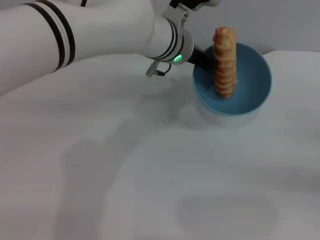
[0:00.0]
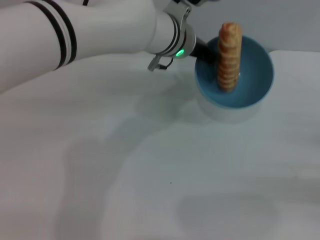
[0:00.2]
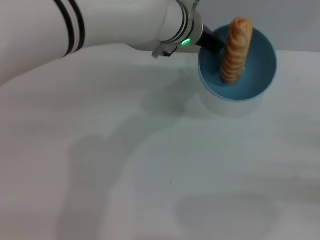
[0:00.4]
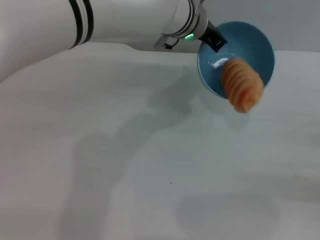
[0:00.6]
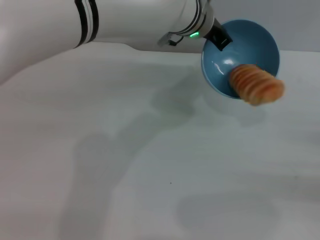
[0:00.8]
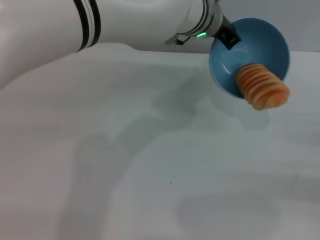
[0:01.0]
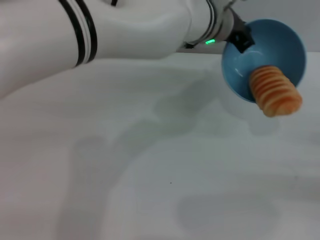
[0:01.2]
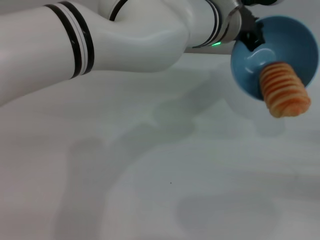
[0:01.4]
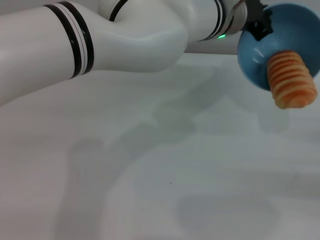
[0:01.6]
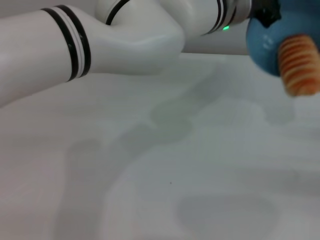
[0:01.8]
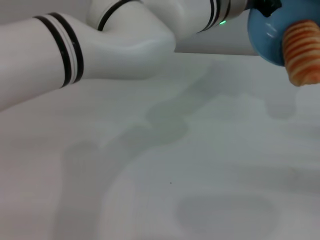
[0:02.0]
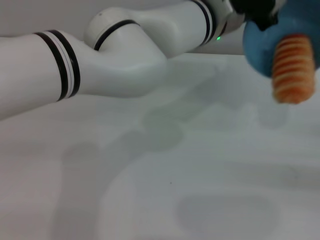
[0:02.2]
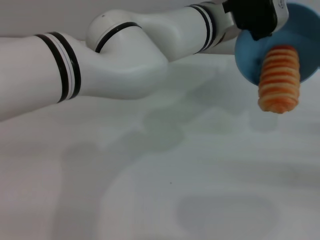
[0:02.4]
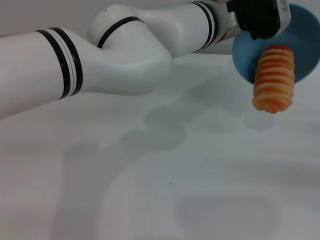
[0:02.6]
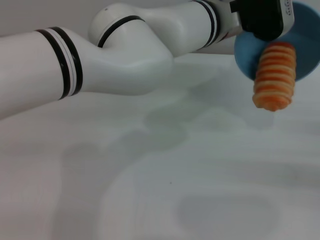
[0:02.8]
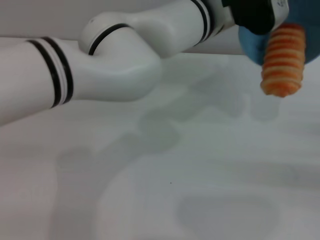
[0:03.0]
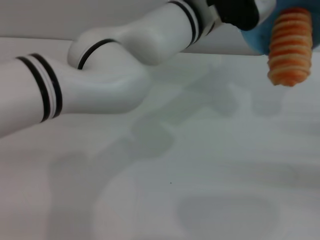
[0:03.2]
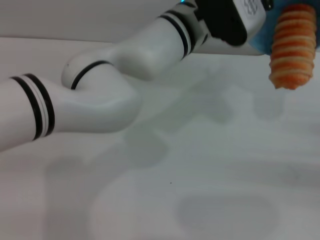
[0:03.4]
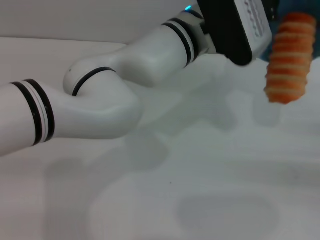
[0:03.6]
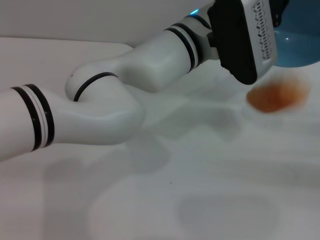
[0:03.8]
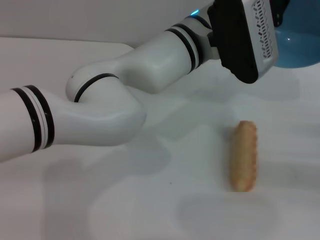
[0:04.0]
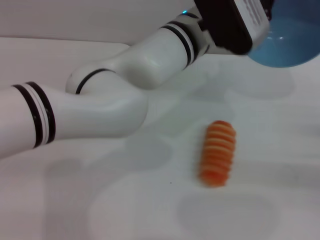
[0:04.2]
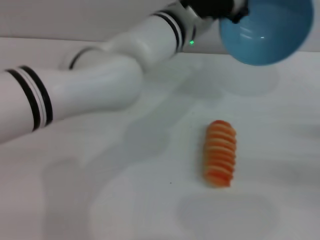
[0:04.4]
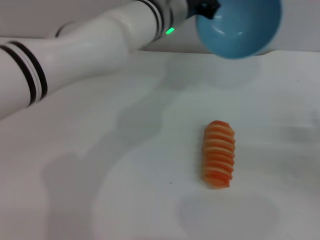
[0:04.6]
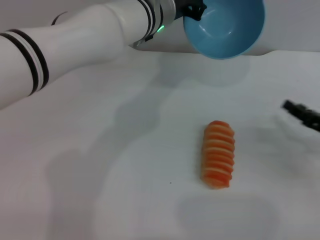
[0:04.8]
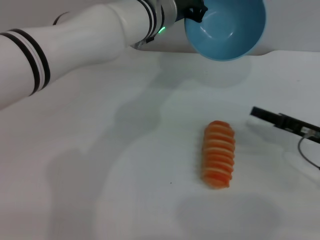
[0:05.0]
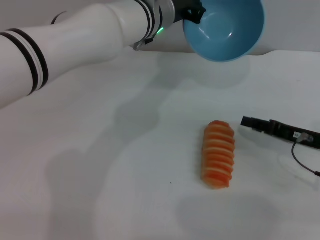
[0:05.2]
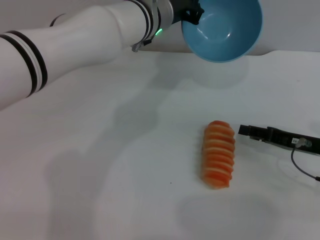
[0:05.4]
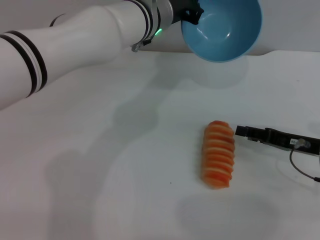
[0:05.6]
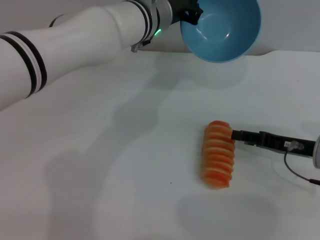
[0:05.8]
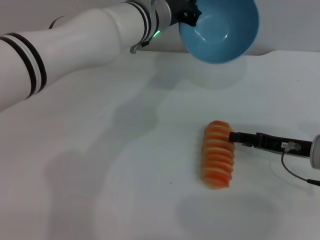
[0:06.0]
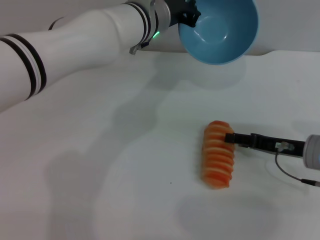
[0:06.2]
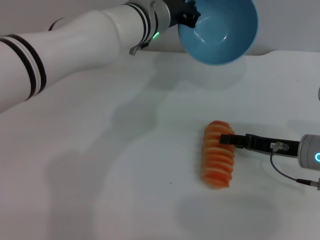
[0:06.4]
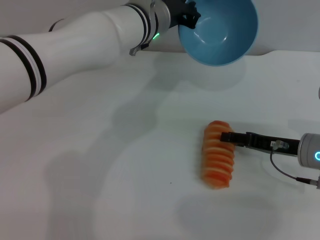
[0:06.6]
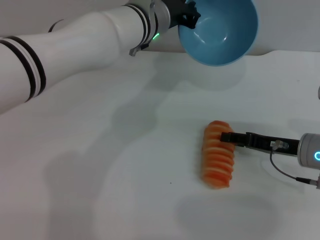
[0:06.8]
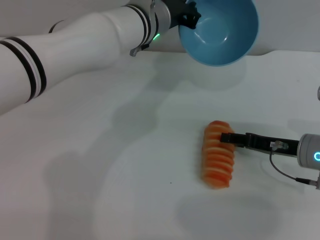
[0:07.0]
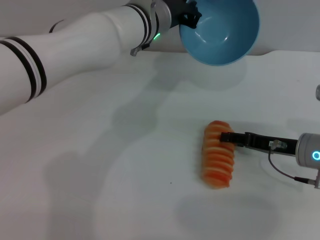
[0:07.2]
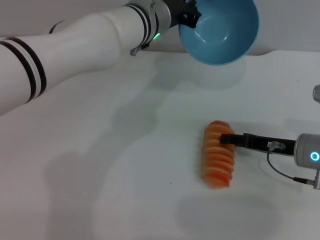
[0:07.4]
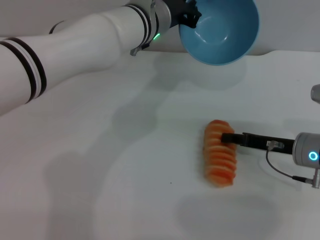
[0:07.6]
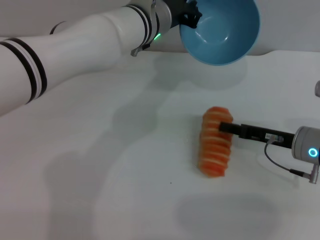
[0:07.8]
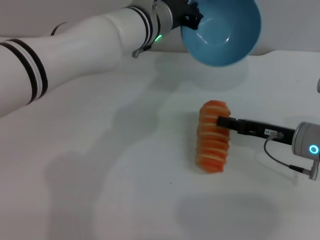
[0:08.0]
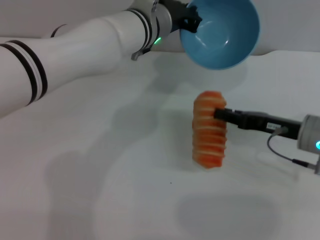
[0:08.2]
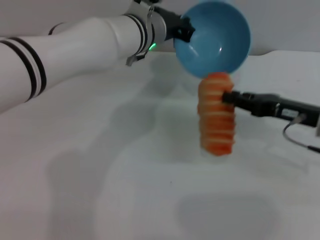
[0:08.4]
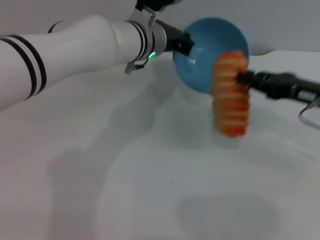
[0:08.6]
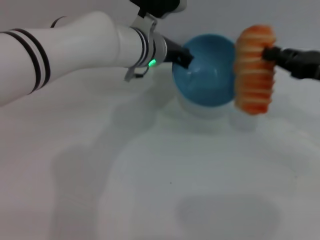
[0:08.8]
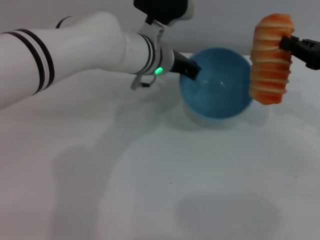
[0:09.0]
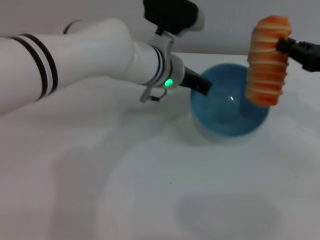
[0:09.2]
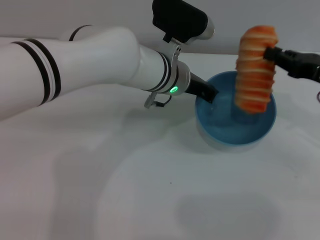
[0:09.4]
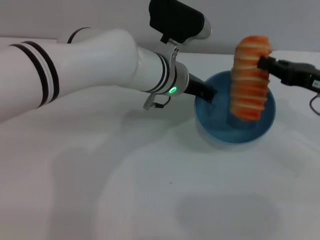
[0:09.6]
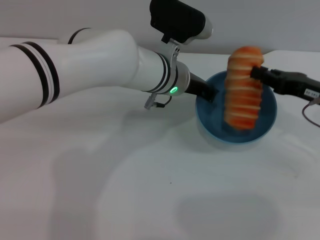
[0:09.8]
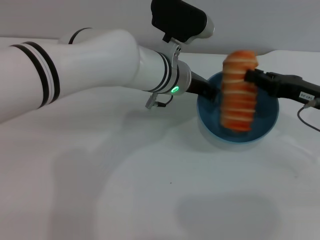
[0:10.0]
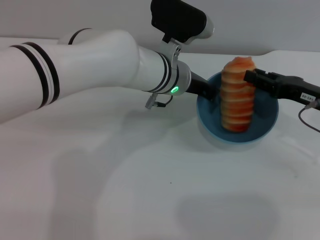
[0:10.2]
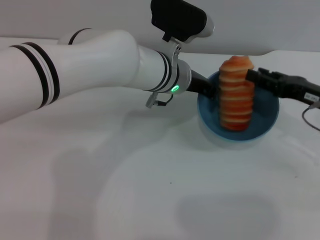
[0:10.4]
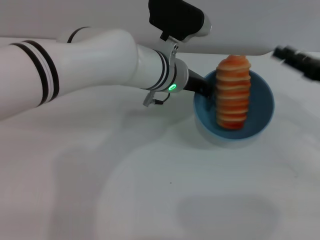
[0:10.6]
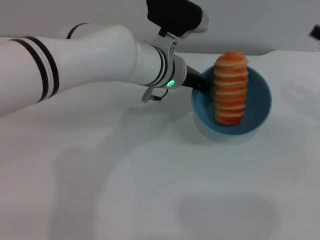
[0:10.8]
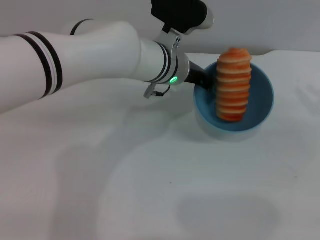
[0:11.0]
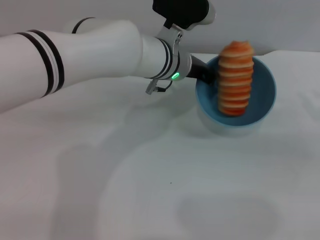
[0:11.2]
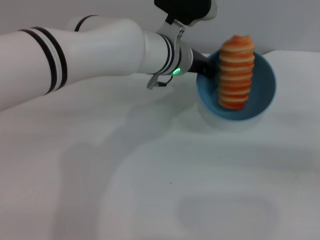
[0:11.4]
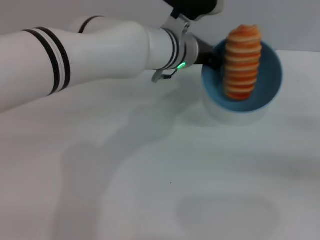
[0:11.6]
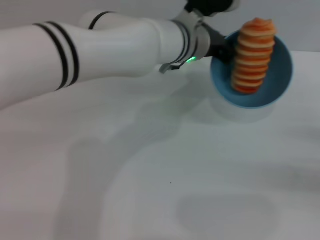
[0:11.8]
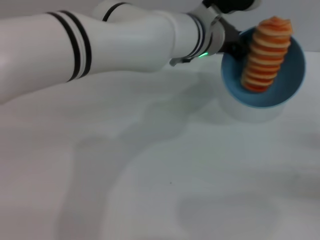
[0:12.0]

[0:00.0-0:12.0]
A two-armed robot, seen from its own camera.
Task of the whole recording: put the bread into the blue bowl and pour it out repeatedly.
Step, 0:00.0 to 0:04.2: Pour the bread out of the bowl.
Step, 0:04.4 to 0:08.4: Pick up the bread with the right gripper.
Step, 0:08.6 to 0:10.6: Place the bread into the bowl.
0:00.0 to 0:01.6: The left gripper travels to the right by roughly 5 cm.
0:04.4 to 0:06.0: The right gripper heads to the left, covering roughly 10 cm. Meanwhile the left gripper changes place by some 5 cm.
0:06.0 to 0:07.6: The grippers move only a little.
0:07.6 to 0:09.0: The right gripper travels upward and to the right by approximately 15 cm, and closes.
0:09.0 to 0:10.4: The right gripper travels downward by roughly 5 cm, and opens up.
0:10.4 to 0:12.0: The right gripper heads to the right, backward and downward, covering approximately 15 cm. The left gripper ends up about 5 cm from where it was.

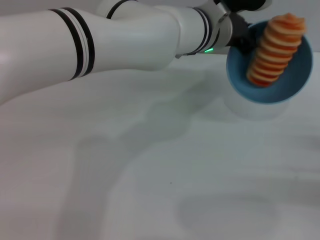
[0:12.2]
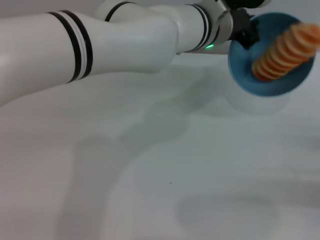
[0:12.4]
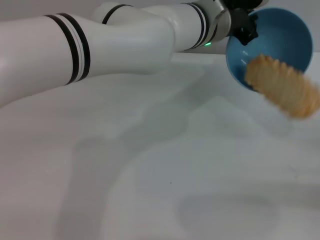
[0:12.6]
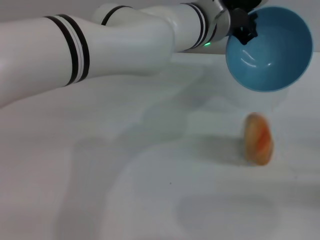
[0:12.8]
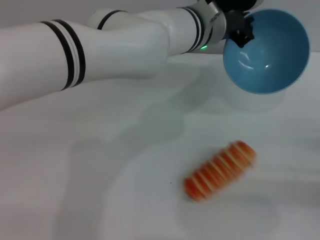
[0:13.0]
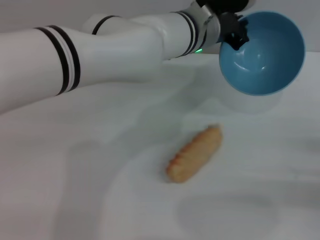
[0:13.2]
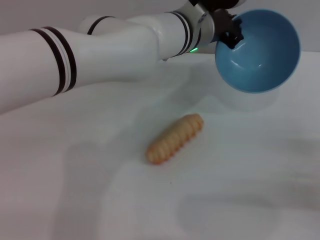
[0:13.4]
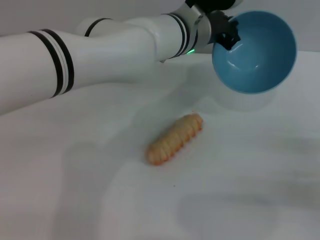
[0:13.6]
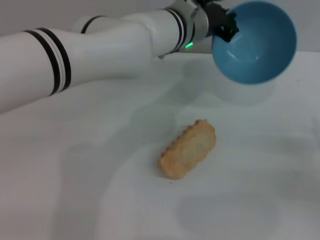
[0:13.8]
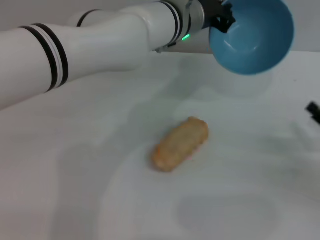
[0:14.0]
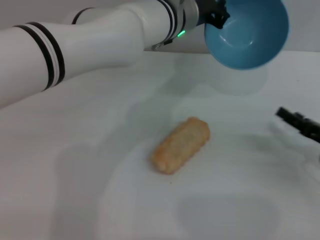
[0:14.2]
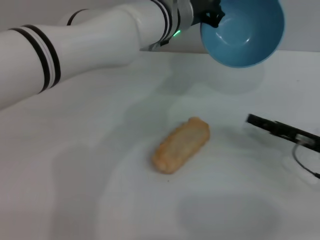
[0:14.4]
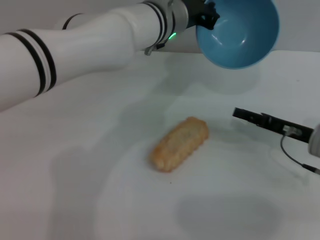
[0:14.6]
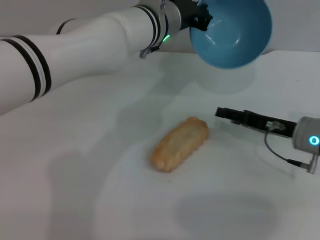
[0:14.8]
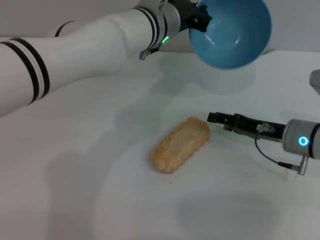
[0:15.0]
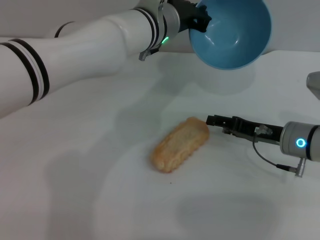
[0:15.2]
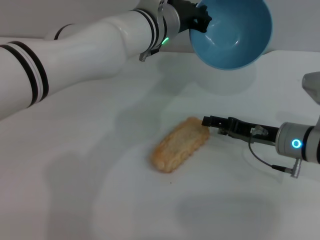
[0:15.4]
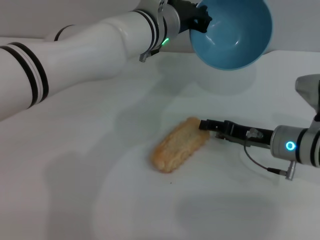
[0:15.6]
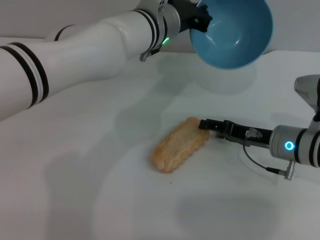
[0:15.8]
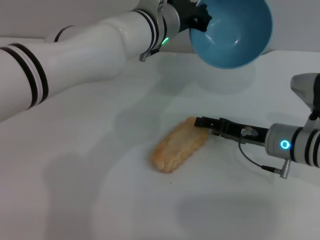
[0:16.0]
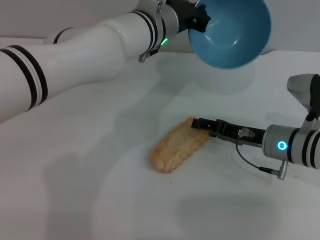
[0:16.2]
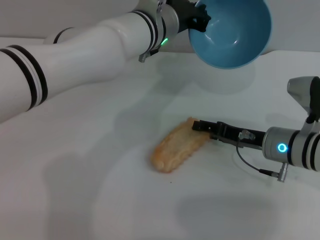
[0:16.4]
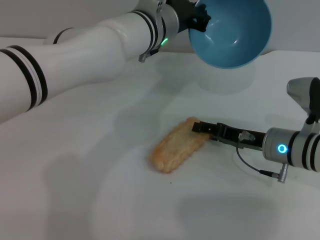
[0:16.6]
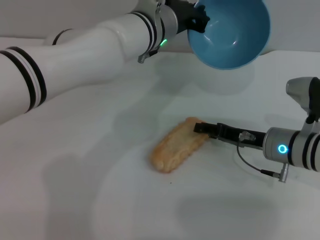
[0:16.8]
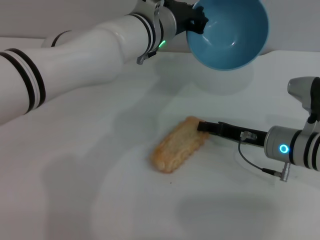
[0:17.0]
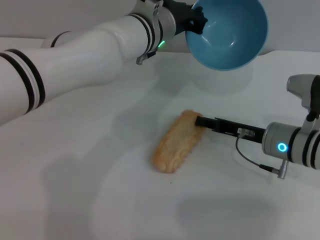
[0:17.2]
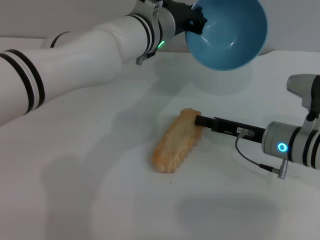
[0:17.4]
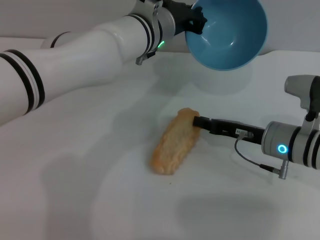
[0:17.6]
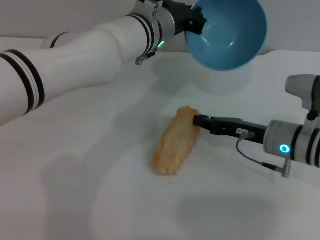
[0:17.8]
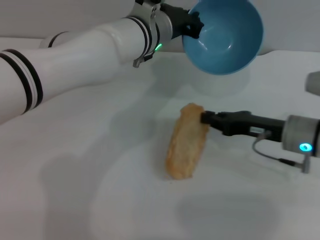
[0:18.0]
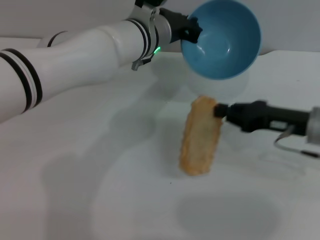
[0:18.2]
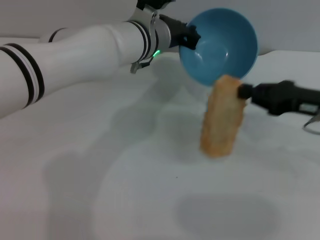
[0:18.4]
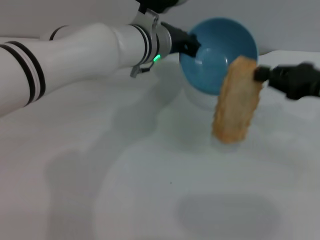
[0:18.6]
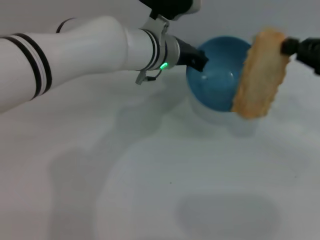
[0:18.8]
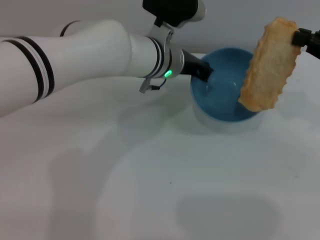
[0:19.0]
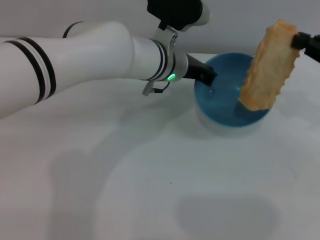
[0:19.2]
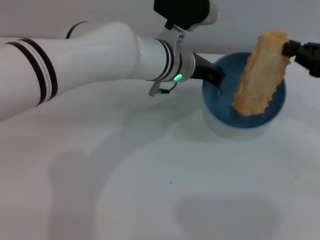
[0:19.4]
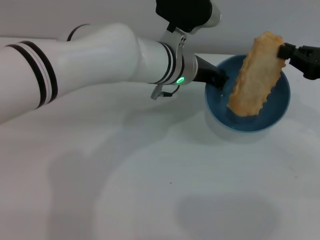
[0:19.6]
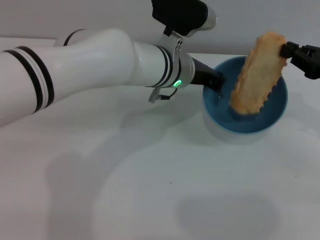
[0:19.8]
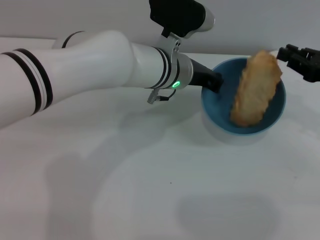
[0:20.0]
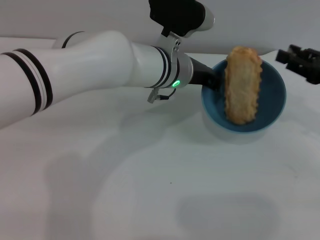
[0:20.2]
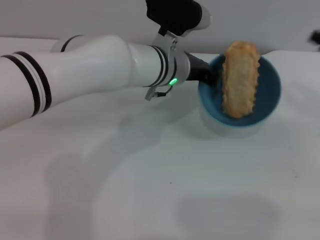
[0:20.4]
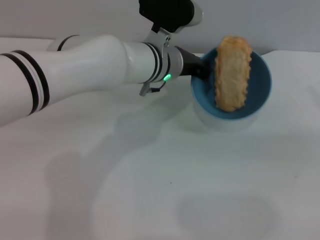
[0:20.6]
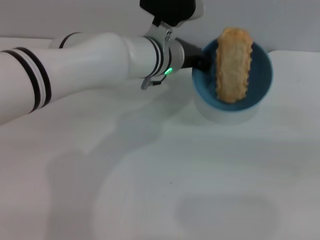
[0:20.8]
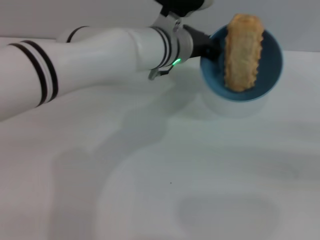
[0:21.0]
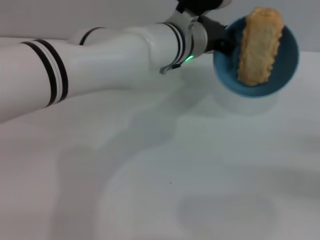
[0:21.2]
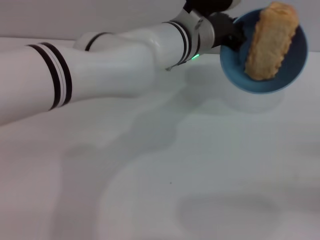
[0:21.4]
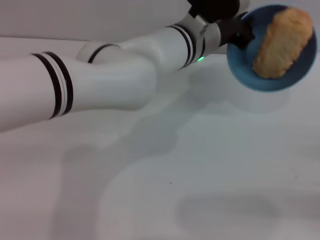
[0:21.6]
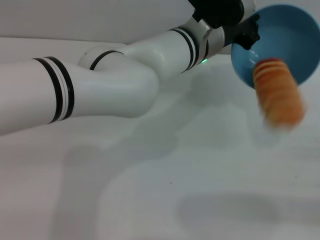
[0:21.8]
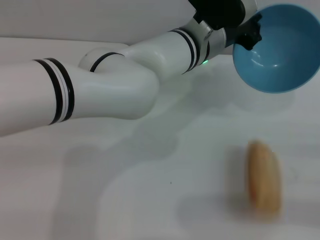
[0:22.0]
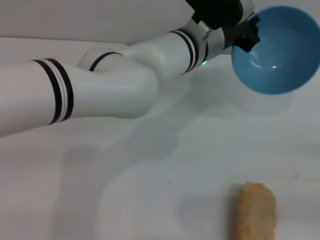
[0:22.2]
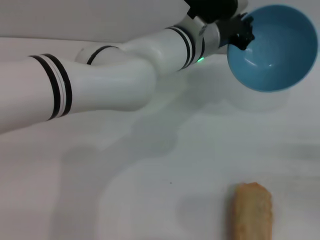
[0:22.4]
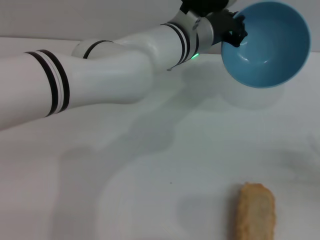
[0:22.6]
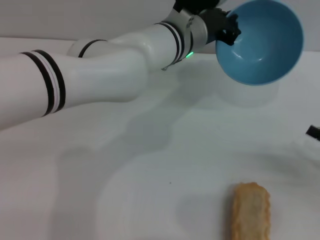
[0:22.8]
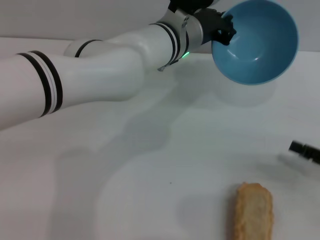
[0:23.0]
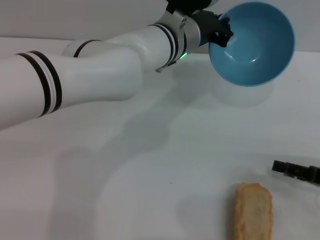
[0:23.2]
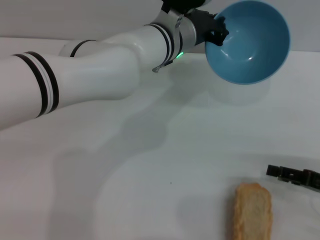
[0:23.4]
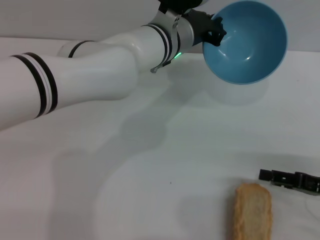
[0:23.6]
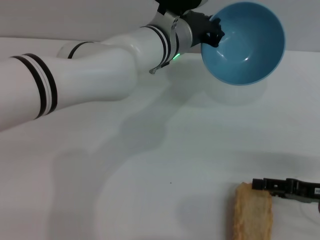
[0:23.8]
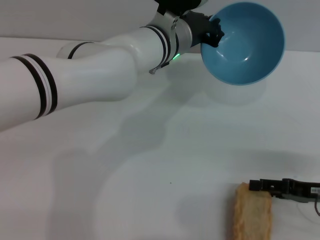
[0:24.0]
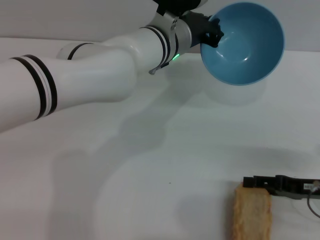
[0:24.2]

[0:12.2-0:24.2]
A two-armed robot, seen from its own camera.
Task of the whole recording: put the bread into the blue bowl and pour it out repeatedly.
Step, 0:12.2 to 0:14.0: Pour the bread out of the bowl.
Step, 0:14.2 to 0:18.6: Pick up the bread with the right gripper.
Step, 0:18.8 to 0:20.0: Place the bread into the bowl.
Step, 0:20.2 to 0:21.8: Pour the bread out of the bowl.
0:13.8 to 0:15.2: The right gripper is displaced to the left and forward by about 15 cm.
0:15.2 to 0:16.6: There are only small adjustments of the grippers.
0:16.6 to 0:18.2: The right gripper moves upward, roughly 5 cm, and closes its fingers.
0:18.2 to 0:19.8: The right gripper shifts about 10 cm to the right and upward.
0:19.8 to 0:21.2: The right gripper moves backward, to the right and downward, about 15 cm, and opens up.
0:22.6 to 0:24.2: The right gripper is displaced to the left by some 10 cm.
